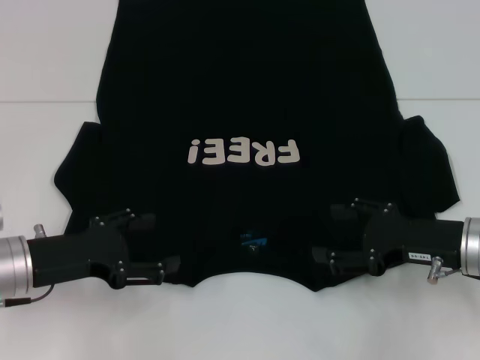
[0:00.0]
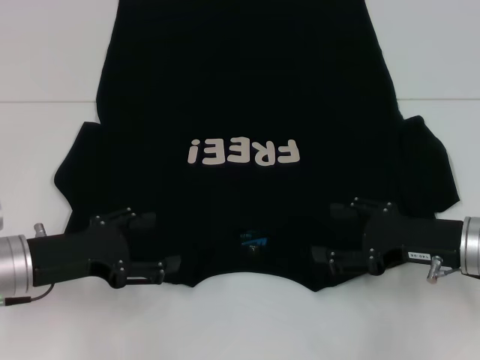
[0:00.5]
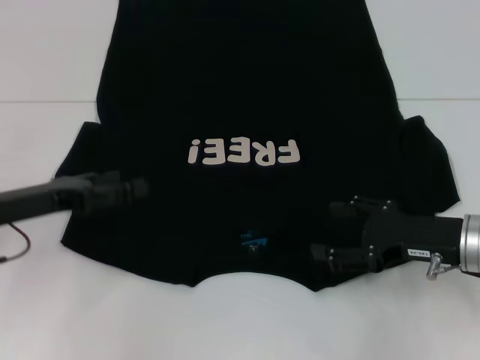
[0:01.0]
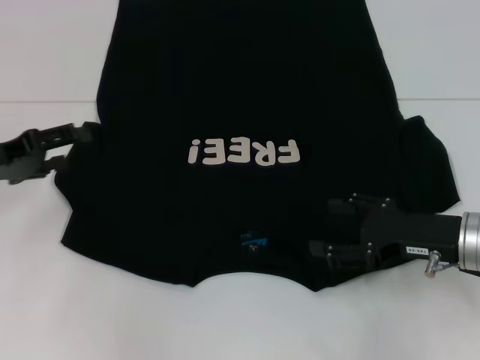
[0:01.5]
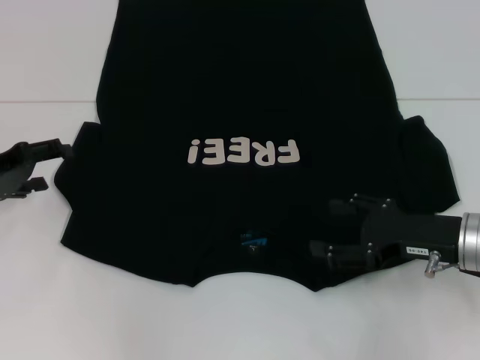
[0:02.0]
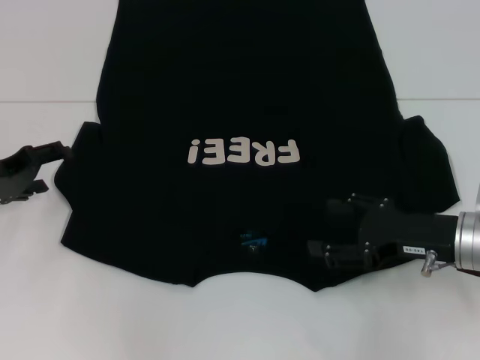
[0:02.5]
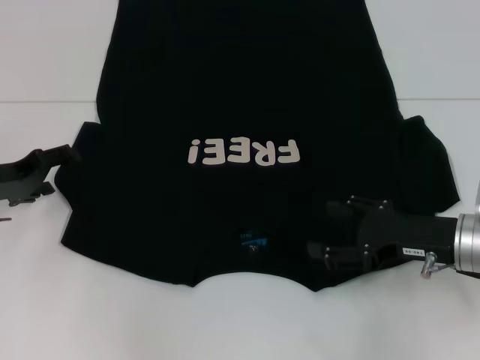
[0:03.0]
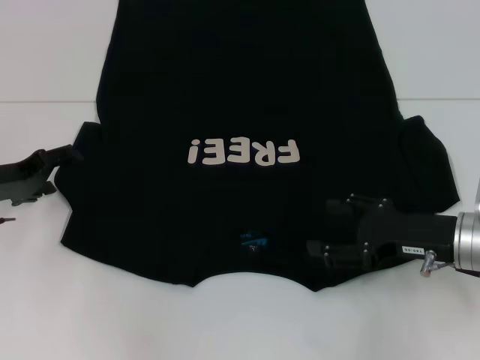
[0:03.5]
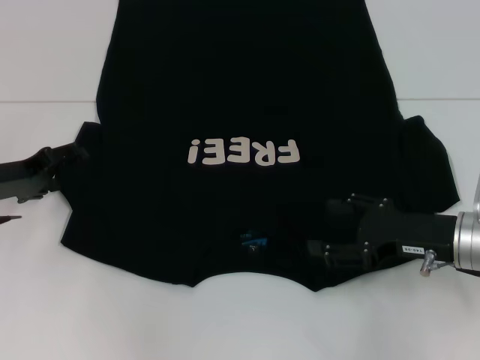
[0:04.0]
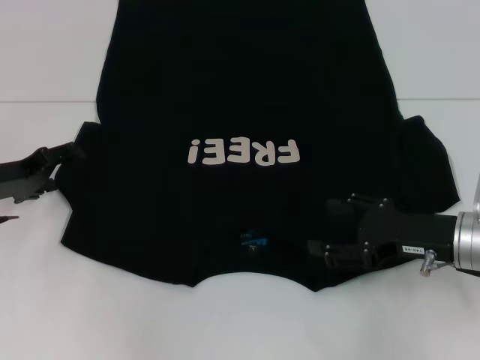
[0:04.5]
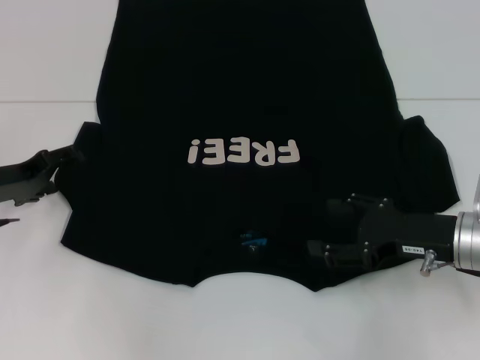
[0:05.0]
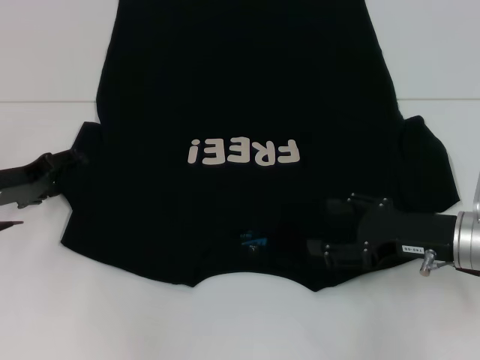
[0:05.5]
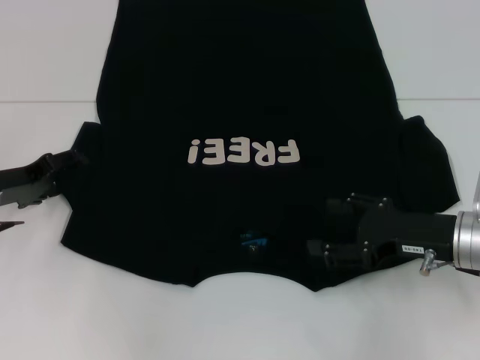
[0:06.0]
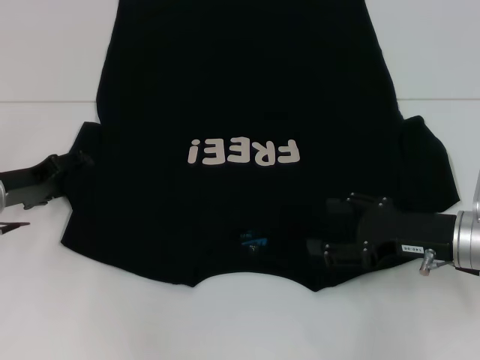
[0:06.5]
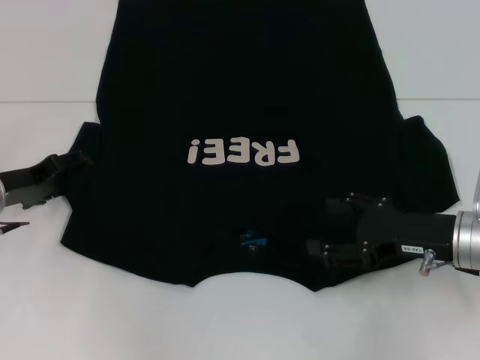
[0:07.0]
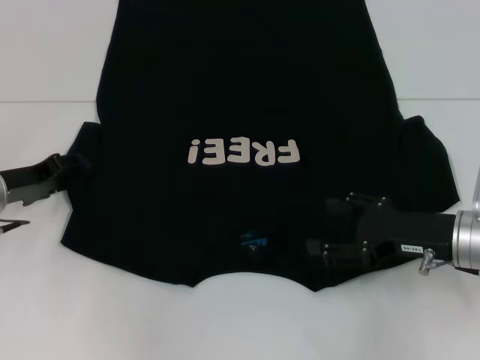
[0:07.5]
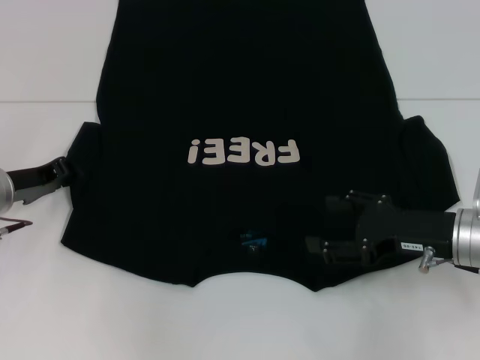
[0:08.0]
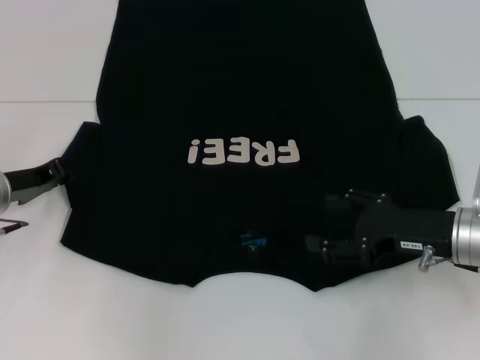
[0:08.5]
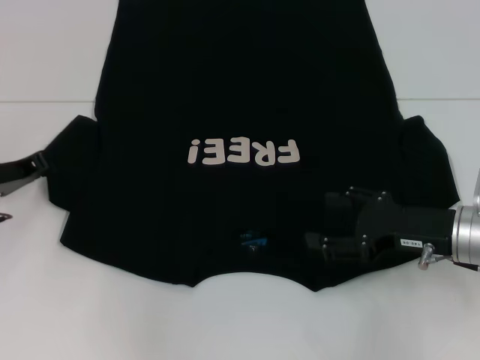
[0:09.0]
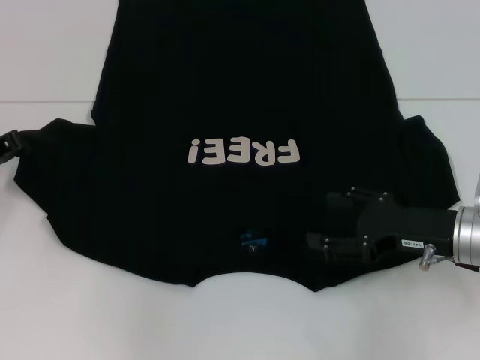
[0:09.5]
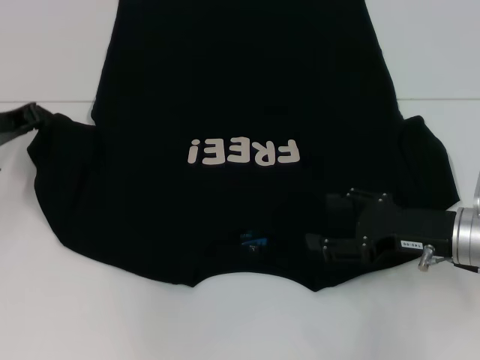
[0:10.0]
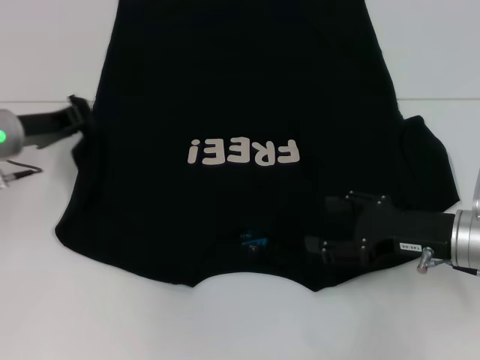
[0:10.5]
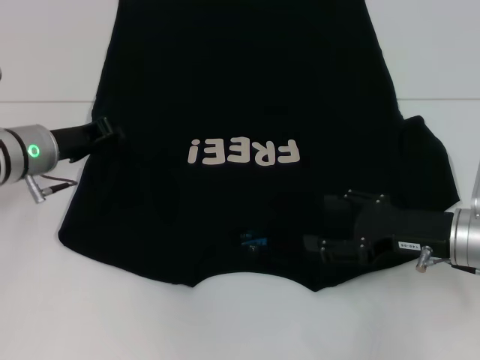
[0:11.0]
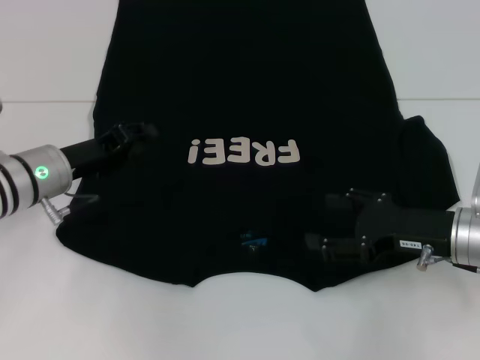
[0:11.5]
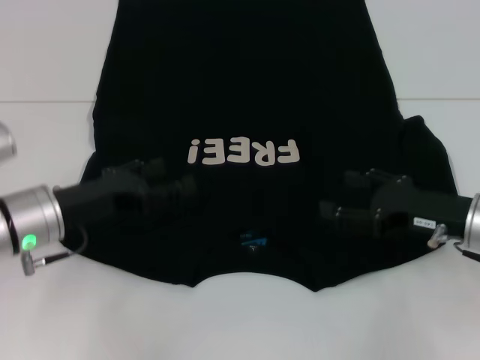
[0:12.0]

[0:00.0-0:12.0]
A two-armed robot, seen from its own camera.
Step, 0.0 to 11.5 s: Fold the bottom left sleeve with your left hand.
0.0 to 2.0 s: The left gripper shifts about 10 cm to the left and forward.
2.0 to 4.0 s: The grippers stay close to where they were, moving slightly.
4.0 to 6.0 s: Neither gripper changes place.
6.0 to 8.0 s: The left gripper closes.
8.0 to 10.0 s: The left gripper heads upward, covering some 5 cm, and closes its fingers.
10.0 to 12.0 s: The left gripper goes about 10 cm to the right and backward, and opens up.

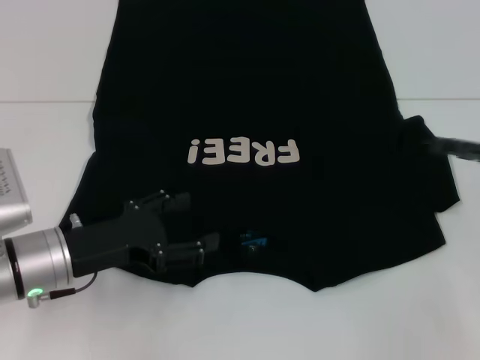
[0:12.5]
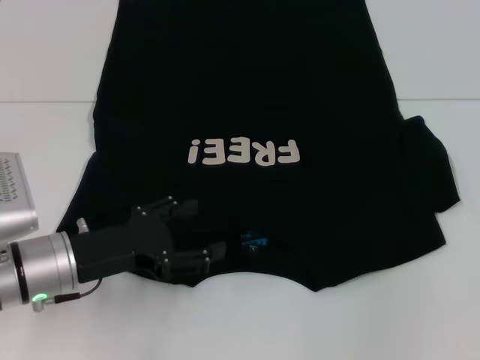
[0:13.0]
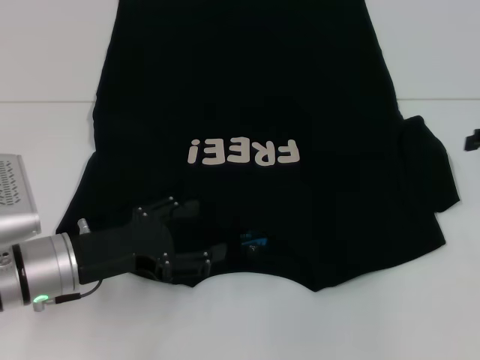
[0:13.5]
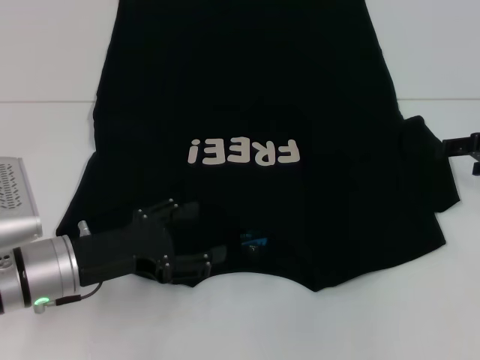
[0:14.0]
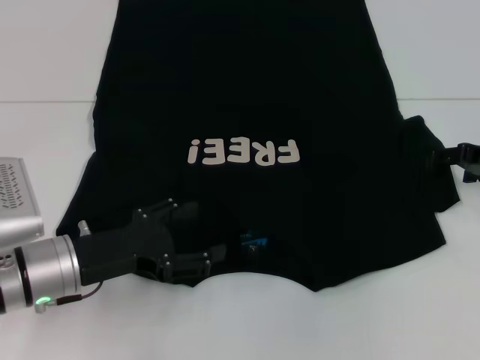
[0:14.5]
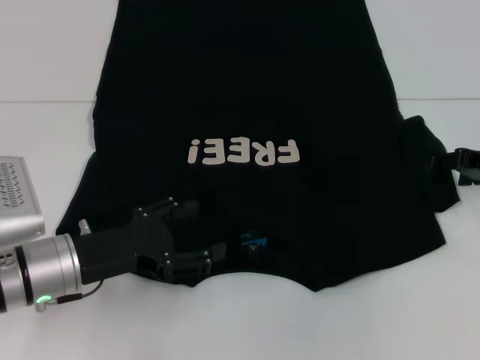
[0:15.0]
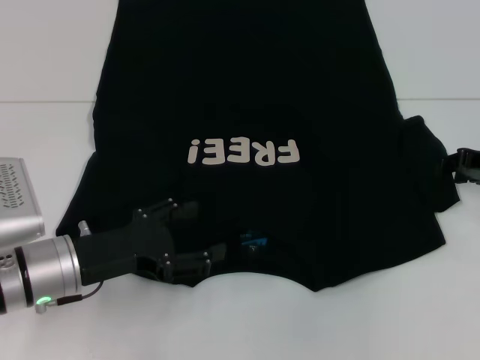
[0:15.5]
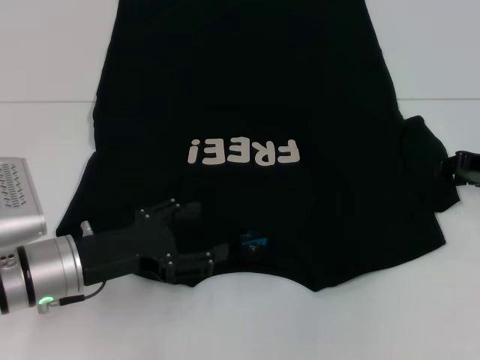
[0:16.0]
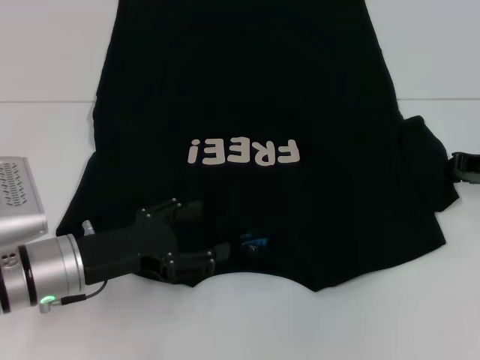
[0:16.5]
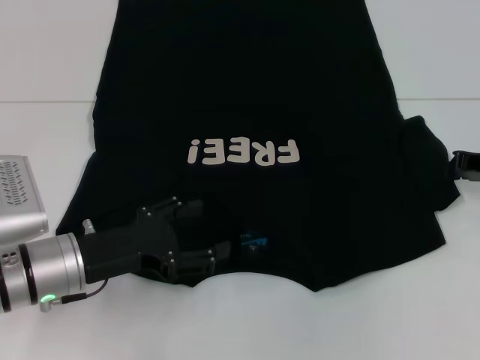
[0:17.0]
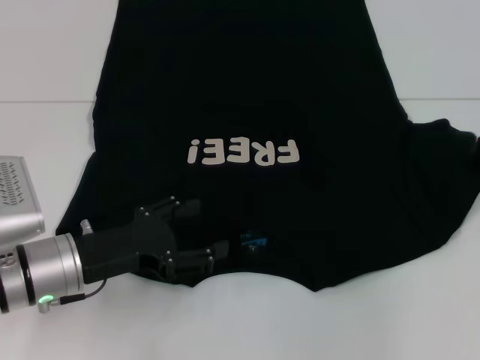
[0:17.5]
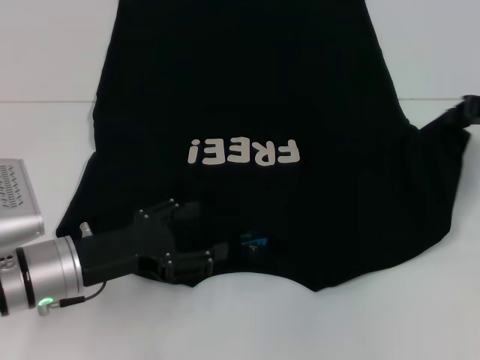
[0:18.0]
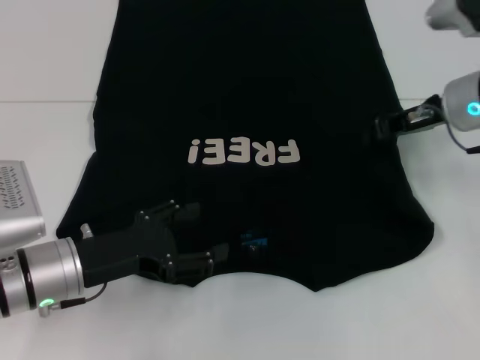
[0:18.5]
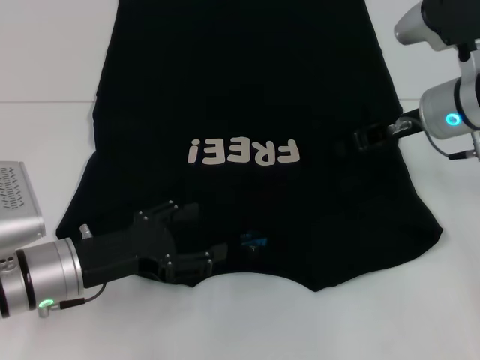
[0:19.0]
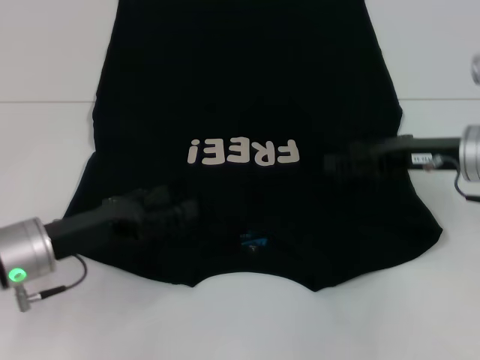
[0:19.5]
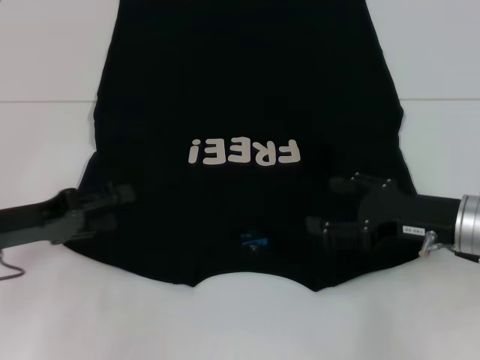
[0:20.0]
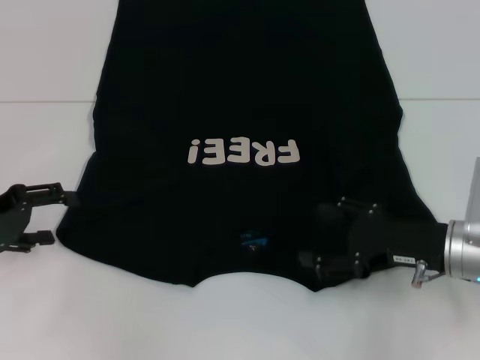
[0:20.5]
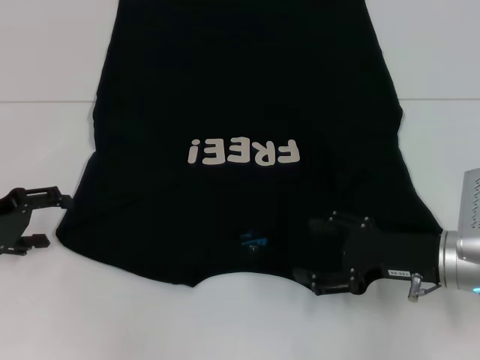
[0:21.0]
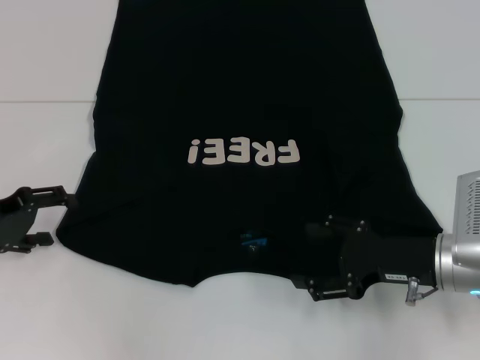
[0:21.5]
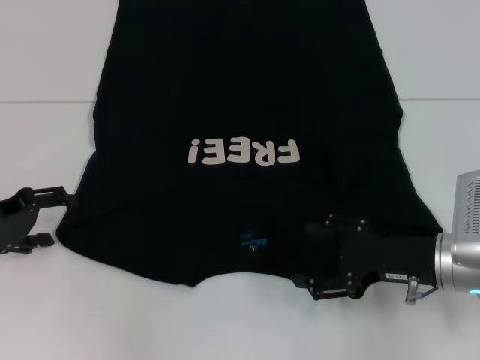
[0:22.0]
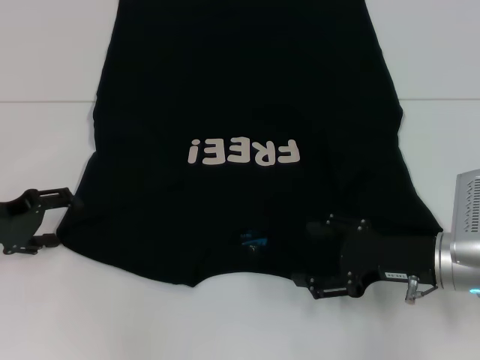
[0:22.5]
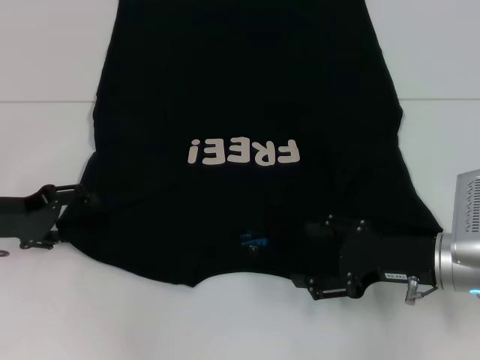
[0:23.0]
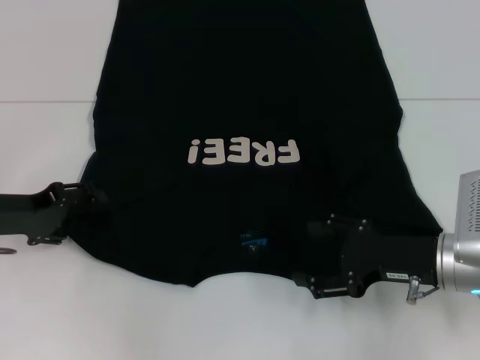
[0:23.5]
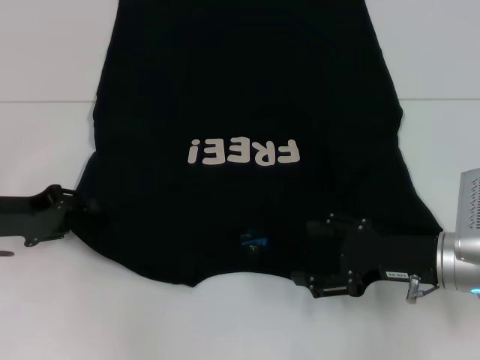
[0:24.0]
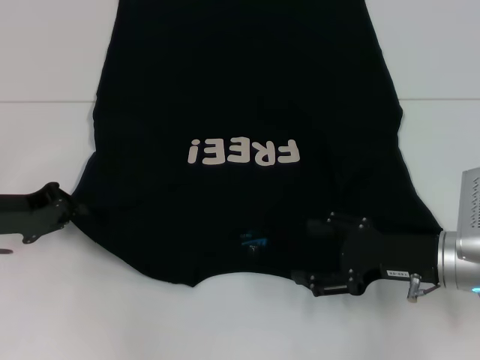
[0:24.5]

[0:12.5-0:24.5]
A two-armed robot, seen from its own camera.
Step, 12.5 to 19.0 s: Fold the bottom right sleeve with your right hand.
Step, 19.5 to 24.0 s: Grab the bottom left corner with your left hand.
12.5 to 14.5 s: The right gripper shifts approximately 5 cm forward, and travels to the right and back again, roughly 5 cm each way.
14.5 to 16.5 s: The right gripper closes.
16.5 to 18.5 s: The right gripper shifts some 10 cm to the left and upward.
18.5 to 20.5 s: The left gripper is displaced to the left and upward by approximately 15 cm, while the right gripper goes roughly 15 cm backward and downward, and opens its fingers.
20.5 to 22.5 s: The grippers stay close to where they were, moving slightly.
22.5 to 24.5 s: The left gripper closes its fingers.

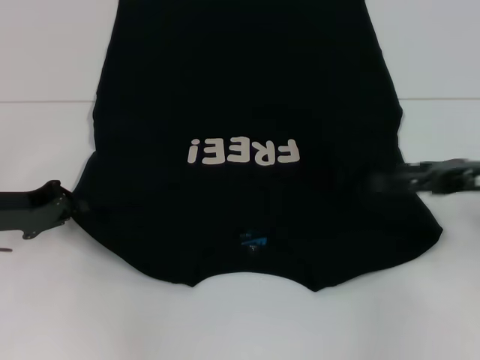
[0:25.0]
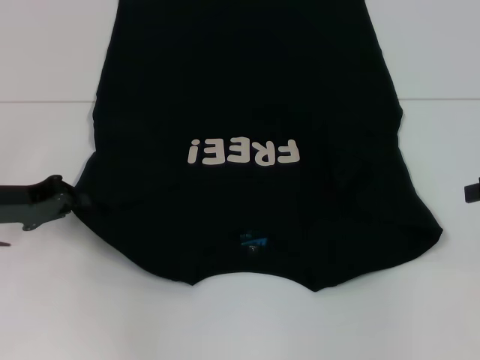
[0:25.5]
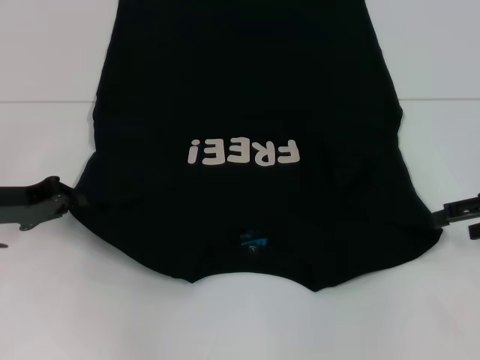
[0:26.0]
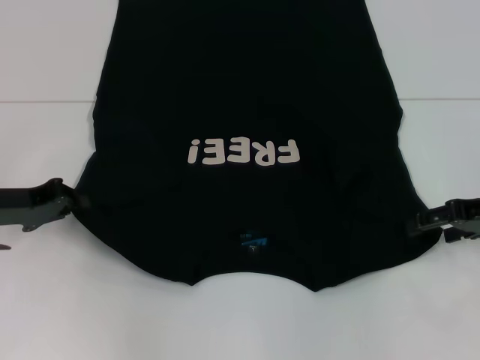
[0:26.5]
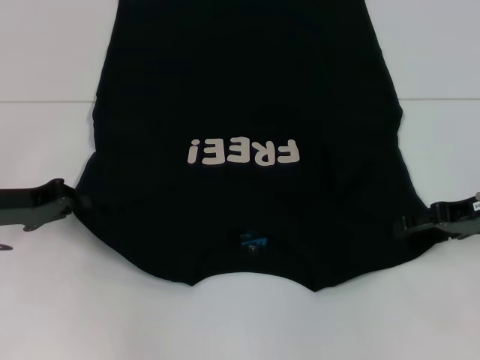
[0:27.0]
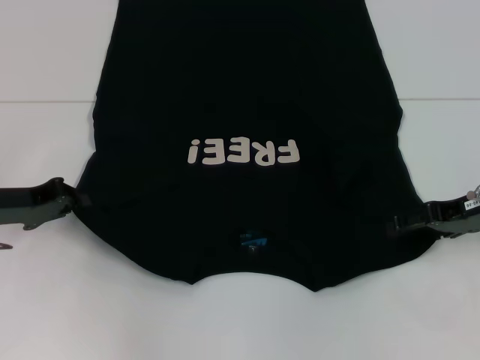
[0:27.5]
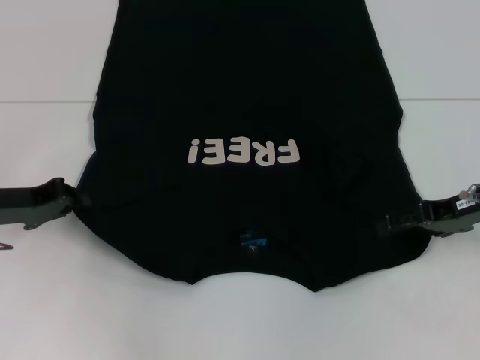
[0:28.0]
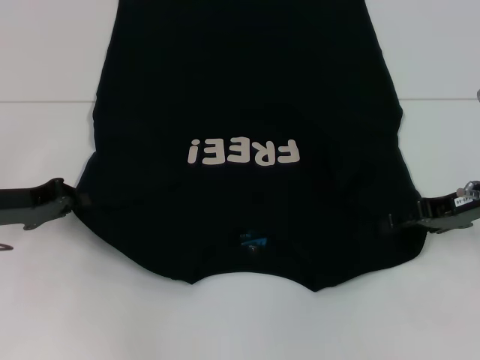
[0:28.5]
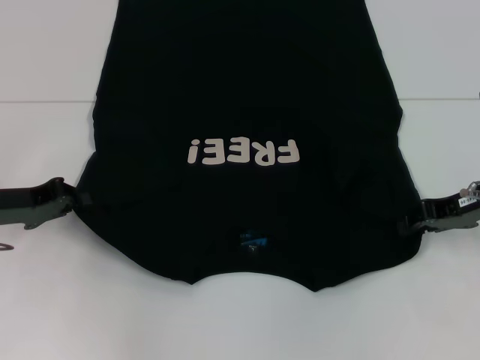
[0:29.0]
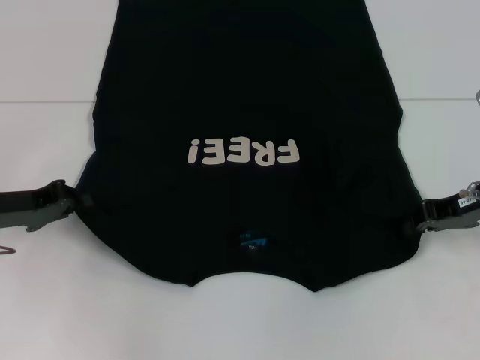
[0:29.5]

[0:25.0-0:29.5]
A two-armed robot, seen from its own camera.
27.0 to 29.5 s: The right gripper closes.
